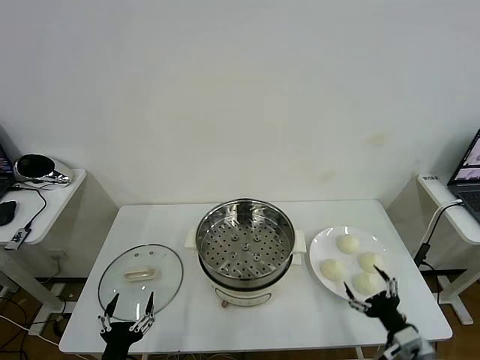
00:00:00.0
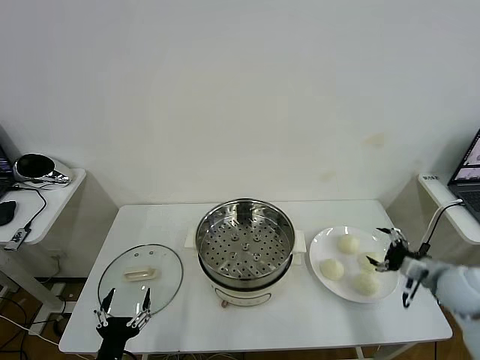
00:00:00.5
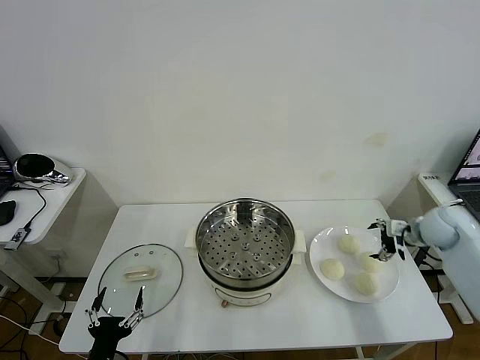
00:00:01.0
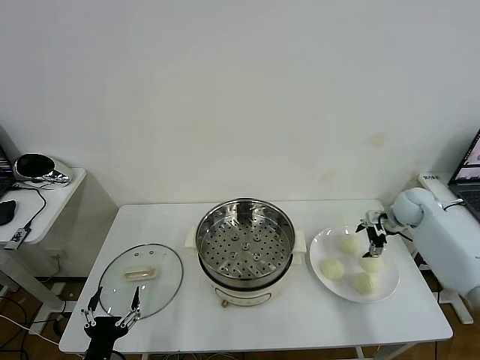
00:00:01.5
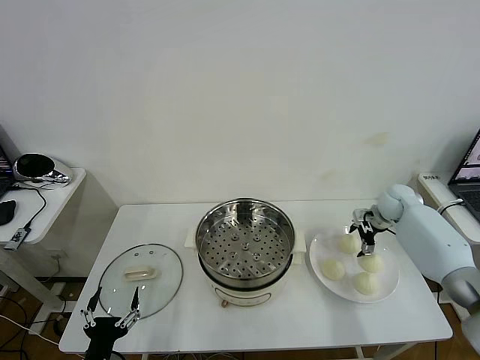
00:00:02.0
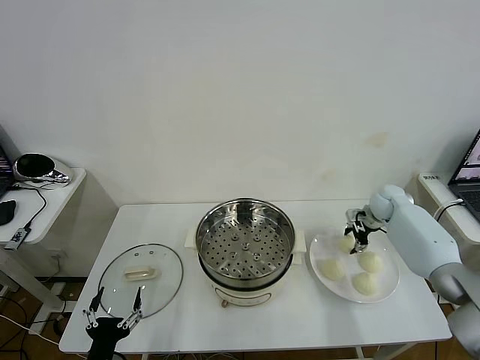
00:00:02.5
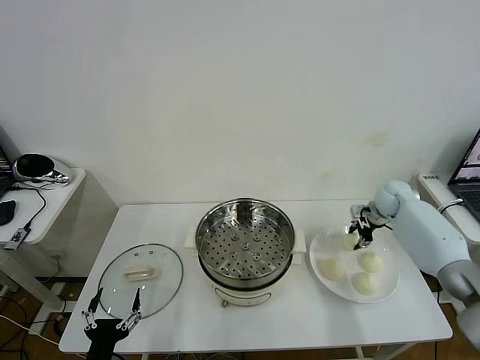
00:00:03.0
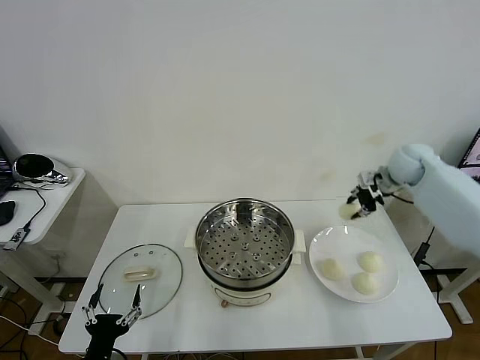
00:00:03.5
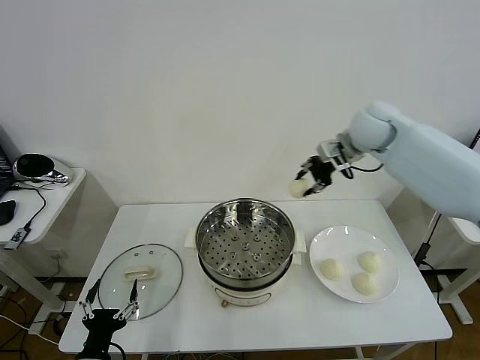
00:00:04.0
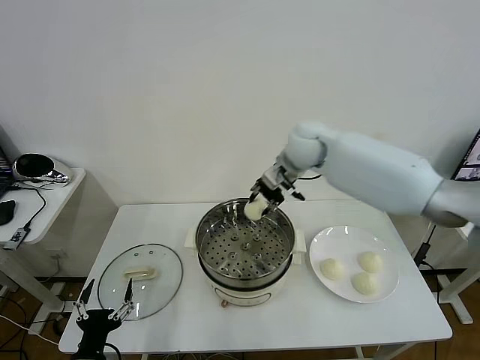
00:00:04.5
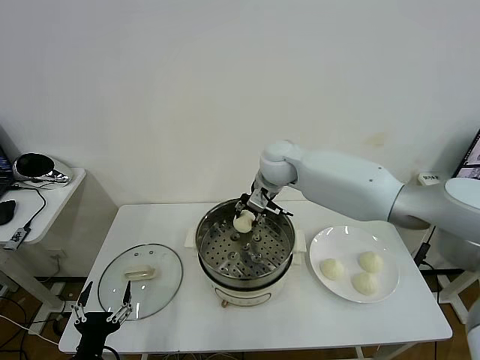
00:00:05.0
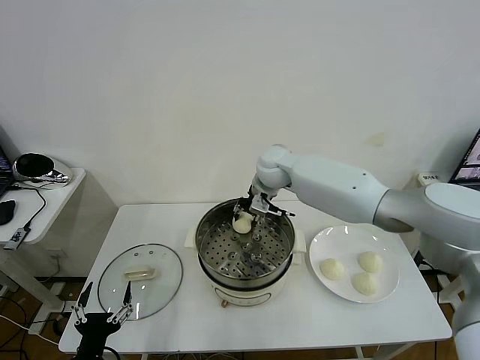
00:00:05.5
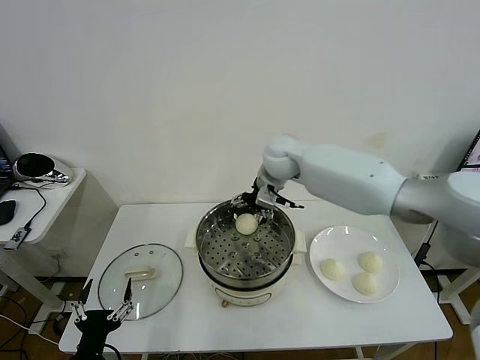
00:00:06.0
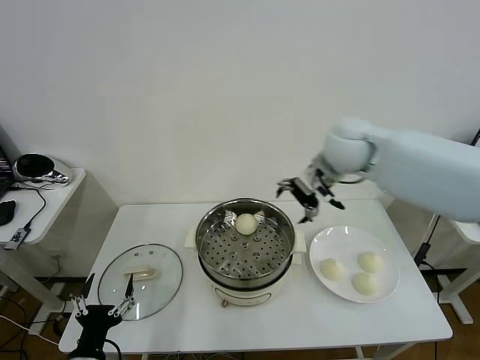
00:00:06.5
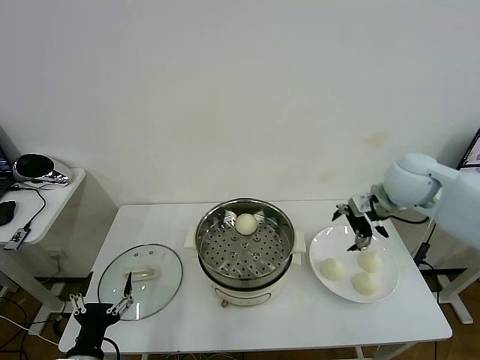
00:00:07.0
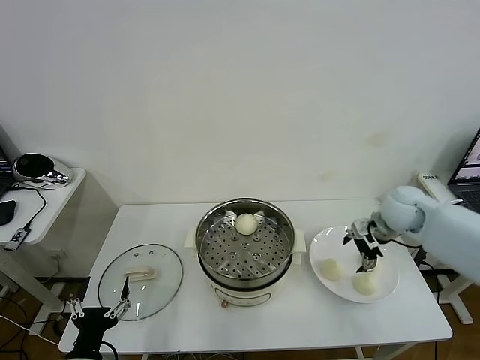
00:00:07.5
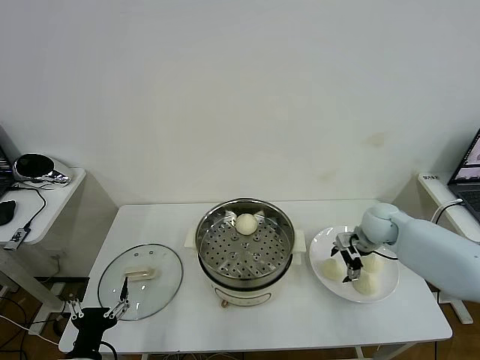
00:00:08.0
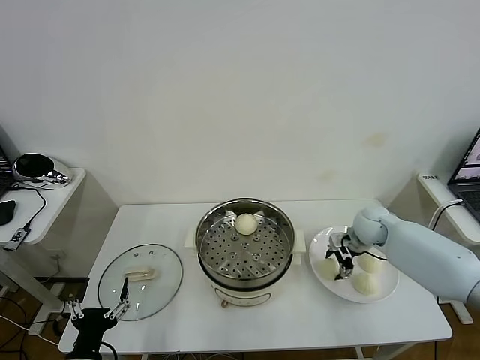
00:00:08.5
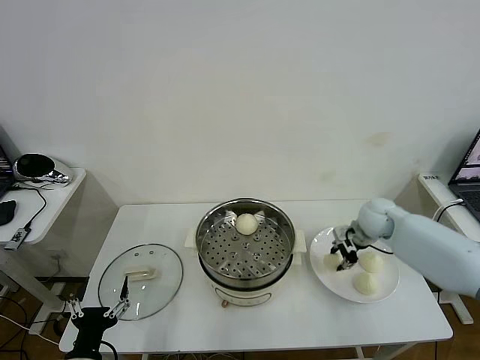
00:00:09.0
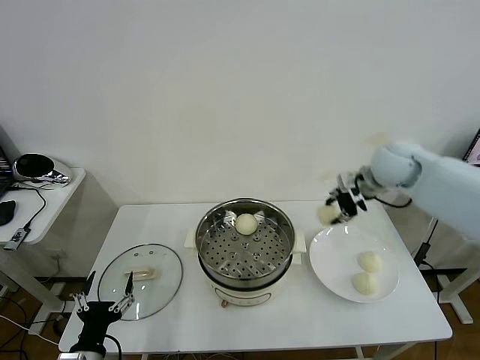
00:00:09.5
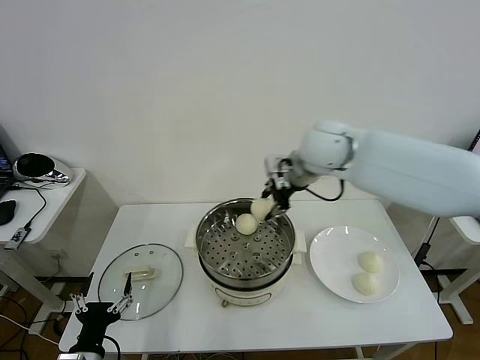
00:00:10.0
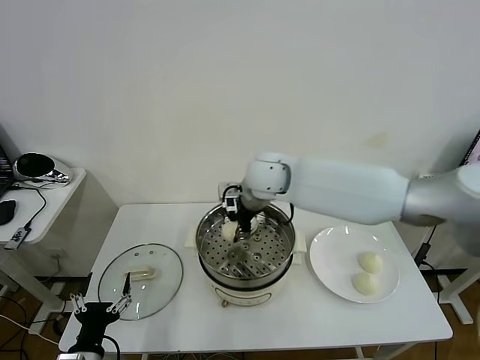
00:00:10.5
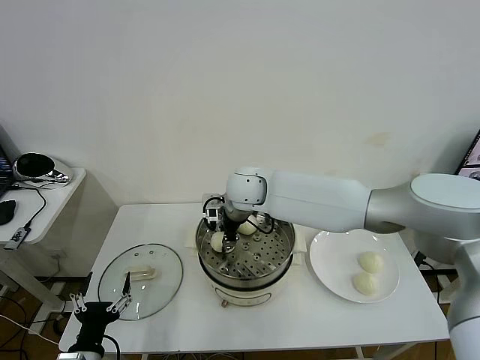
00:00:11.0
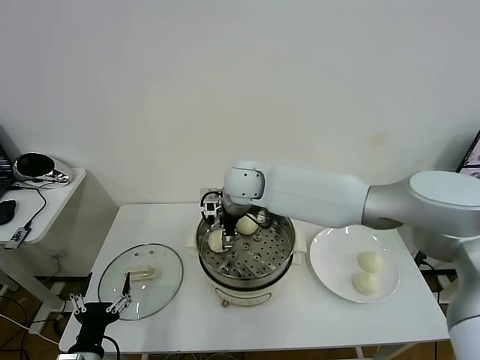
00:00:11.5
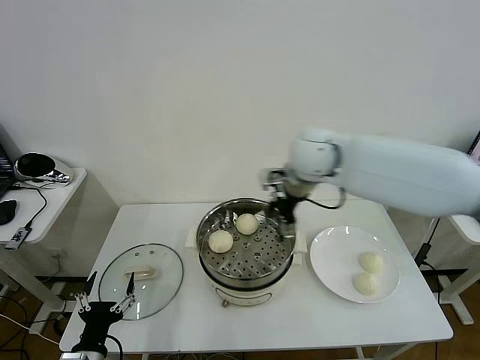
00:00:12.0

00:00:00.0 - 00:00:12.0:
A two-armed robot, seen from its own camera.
Task of the whole recording: take steamed baozi put them in steamer then cover it.
Step, 00:00:00.0 - 00:00:02.5: Grasp the baozi in the plate with right gripper.
Step, 00:00:03.0 - 00:00:05.5: Place the baozi on the steamer with right gripper.
Step, 00:00:06.0 - 00:00:08.5: Grasp the baozi in the plate with right gripper.
Step, 00:00:09.0 - 00:00:11.5: Place the baozi on the steamer with right gripper.
00:00:02.0 - 00:00:04.0: The right gripper is displaced upward and to the left by some 30 cm, and closes its fingers.
00:00:04.0 - 00:00:06.0: The right gripper shifts approximately 15 cm to the left and downward, and opens up.
00:00:06.0 - 00:00:08.0: The right gripper heads to the right and downward, covering approximately 30 cm.
00:00:08.0 - 00:00:10.0: The right gripper shifts some 30 cm upward and to the left, and closes its fingers.
00:00:10.0 - 00:00:12.0: The right gripper travels to the left and back again, about 10 cm each way, and opens.

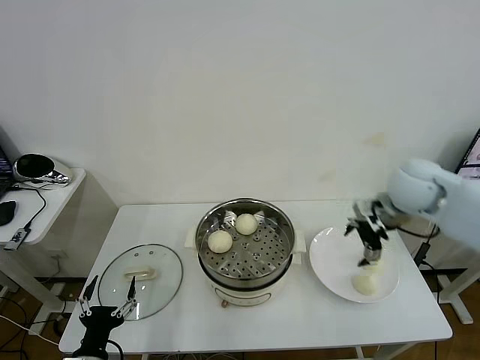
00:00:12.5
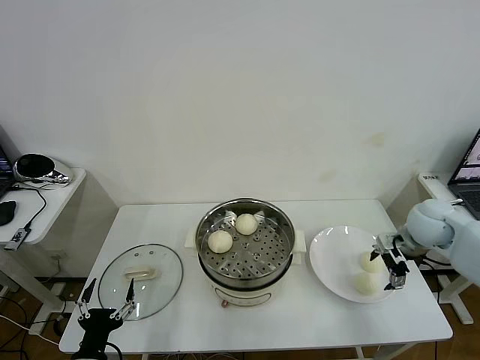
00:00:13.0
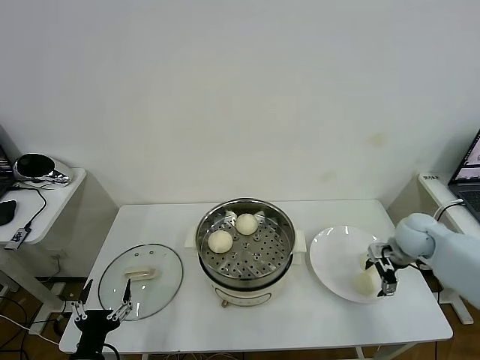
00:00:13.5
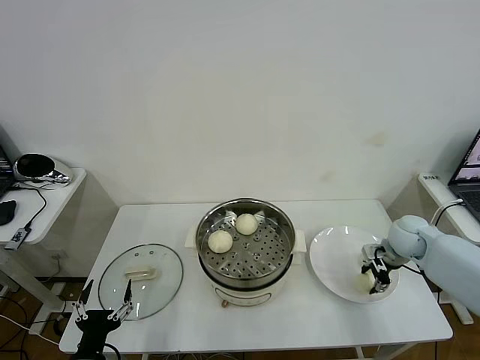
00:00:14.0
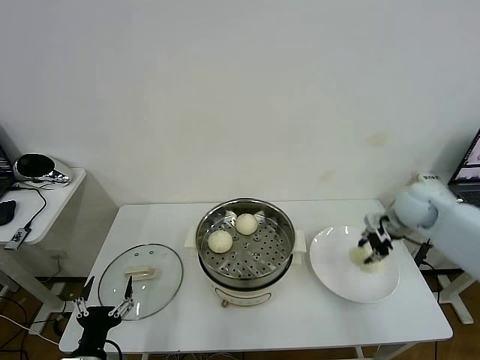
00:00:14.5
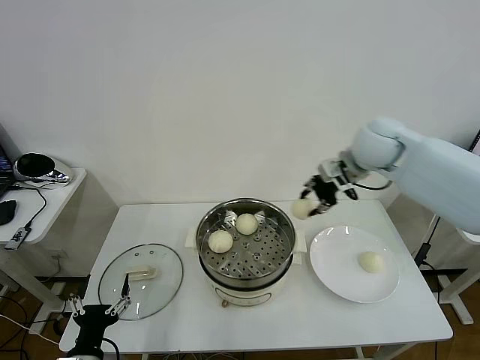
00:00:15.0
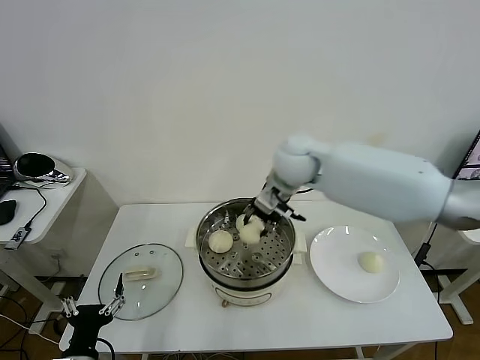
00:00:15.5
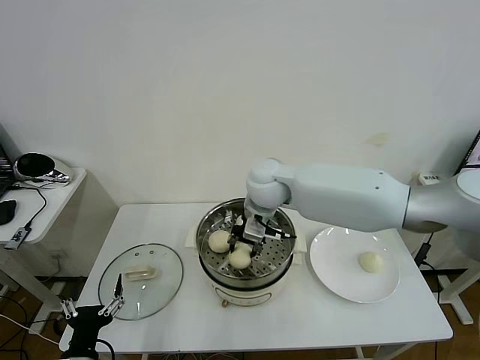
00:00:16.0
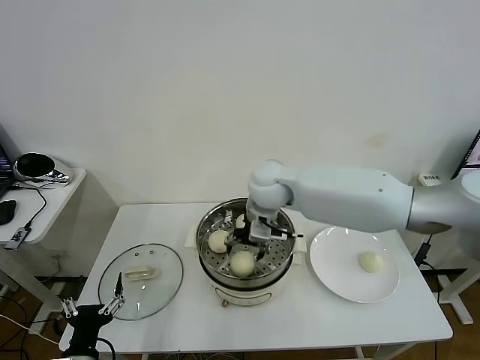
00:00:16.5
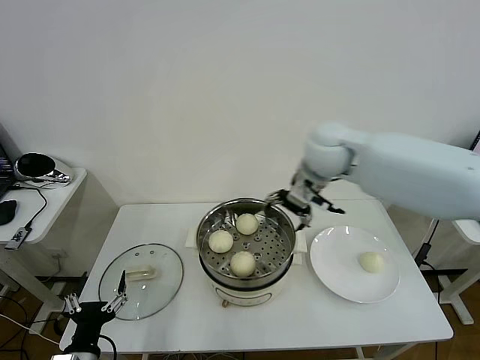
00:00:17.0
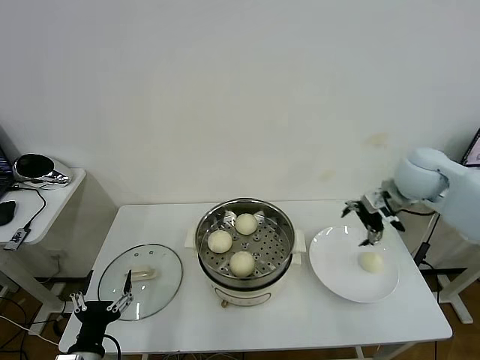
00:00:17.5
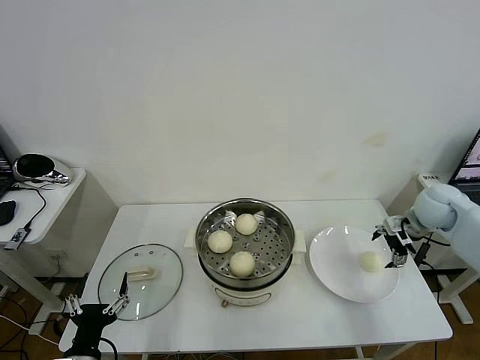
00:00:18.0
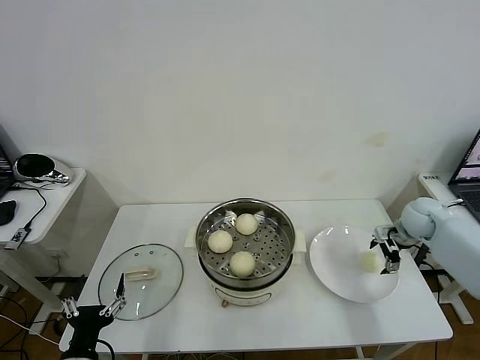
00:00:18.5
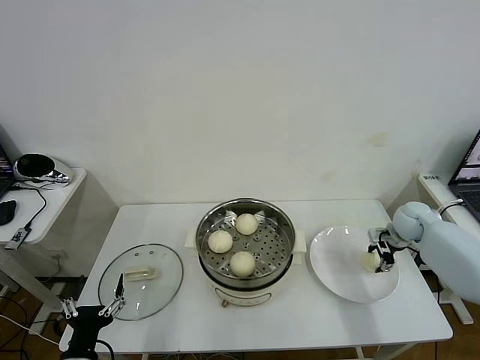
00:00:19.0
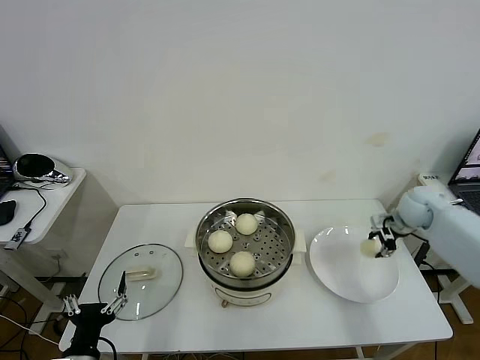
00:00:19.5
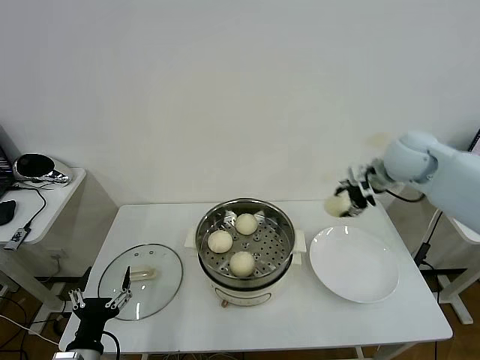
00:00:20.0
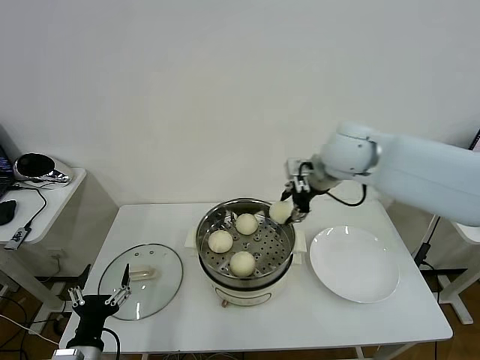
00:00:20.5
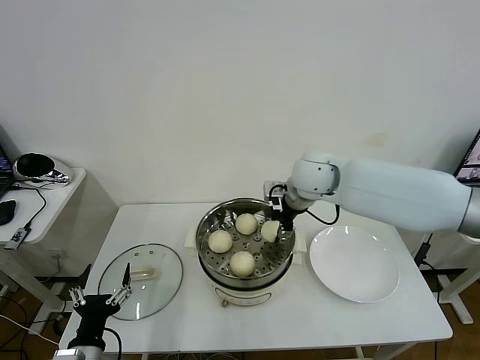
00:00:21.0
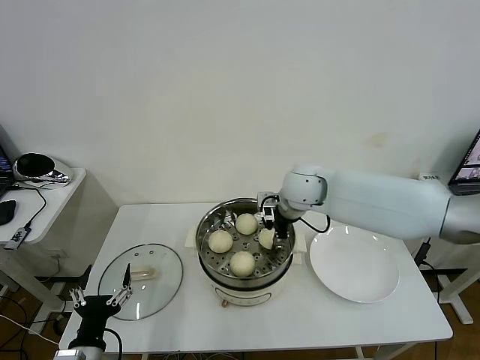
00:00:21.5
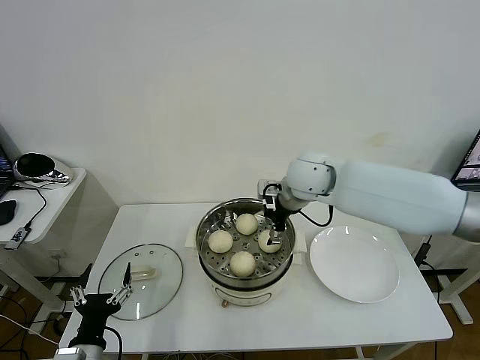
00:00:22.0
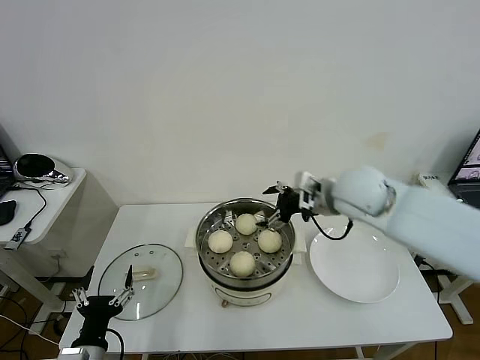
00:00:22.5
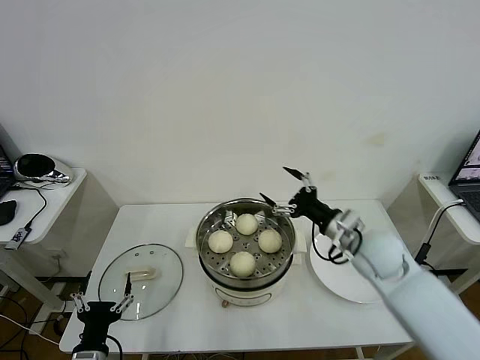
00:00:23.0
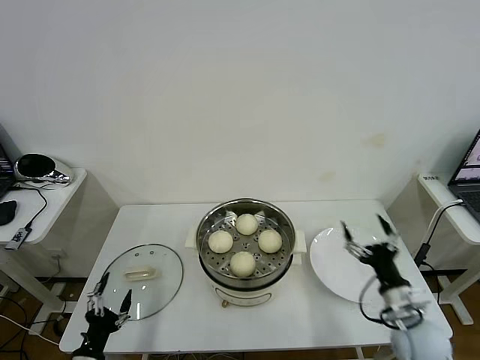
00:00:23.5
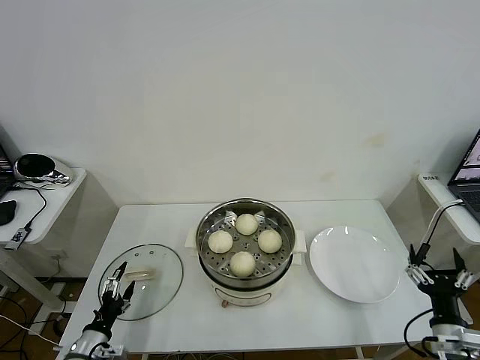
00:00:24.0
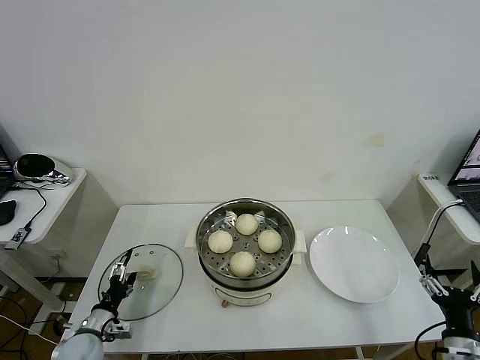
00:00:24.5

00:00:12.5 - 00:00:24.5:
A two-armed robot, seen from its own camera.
Task of the whole recording: take steamed baozi put them in steamer then cover it.
Step, 00:00:12.5 - 00:00:14.0: Grasp the baozi in the plate with right gripper.
Step, 00:00:14.5 - 00:00:16.5: Place the baozi on the steamer with right gripper.
Step, 00:00:17.0 - 00:00:19.0: Grasp the baozi in the plate with right gripper.
Step, 00:00:19.5 - 00:00:21.5: Place the baozi on the steamer with right gripper.
00:00:12.5 - 00:00:14.5: The right gripper reaches some 15 cm downward, then returns, and closes its fingers.
00:00:14.5 - 00:00:16.5: The right gripper shifts some 35 cm to the left, and opens up.
00:00:16.5 - 00:00:18.5: The right gripper goes about 40 cm to the right.
00:00:18.5 - 00:00:20.5: The right gripper travels to the left and upward by about 35 cm, and closes its fingers.
00:00:20.5 - 00:00:22.5: The right gripper shifts some 10 cm downward and backward, and opens up.
00:00:22.5 - 00:00:24.5: The right gripper is displaced backward, downward and to the right by roughly 40 cm. Meanwhile the left gripper goes roughly 15 cm forward, downward and to the left.

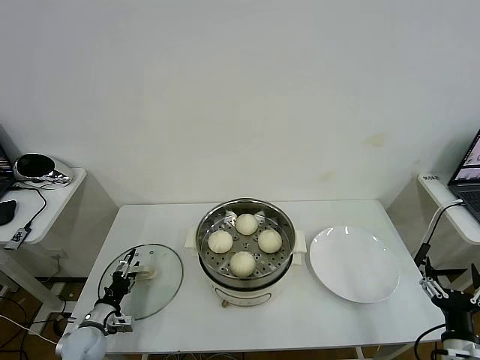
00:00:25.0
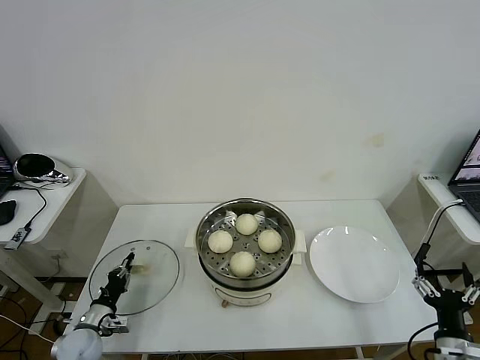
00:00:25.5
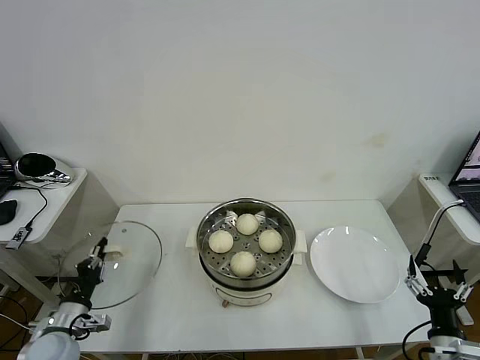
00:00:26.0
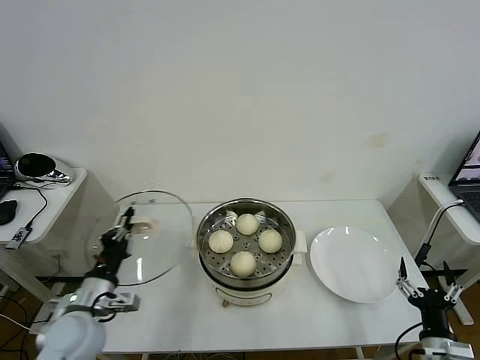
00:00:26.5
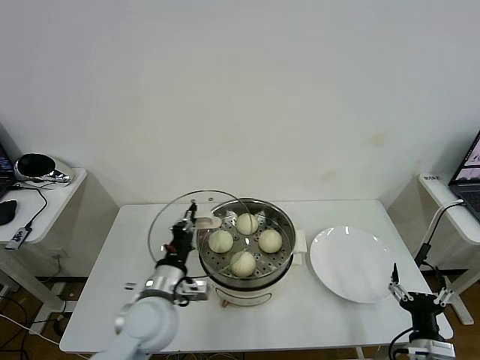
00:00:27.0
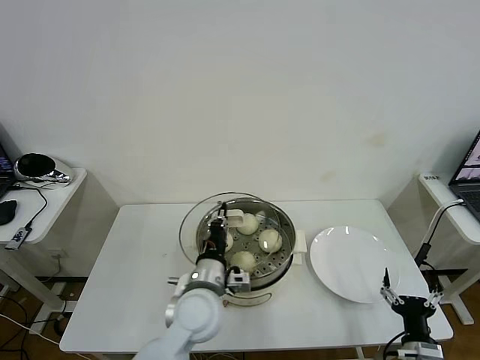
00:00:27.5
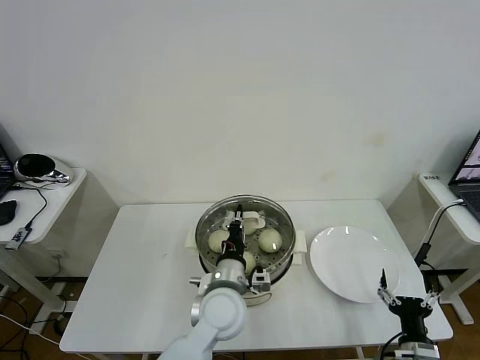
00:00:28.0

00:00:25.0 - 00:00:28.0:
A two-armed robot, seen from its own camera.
Task of the whole recording: take steamed baozi put them in steamer then cover it.
00:00:25.0 - 00:00:26.5: The left gripper travels upward and to the right by roughly 20 cm, and closes.
00:00:26.5 - 00:00:28.0: The left gripper heads to the right, covering about 25 cm.
